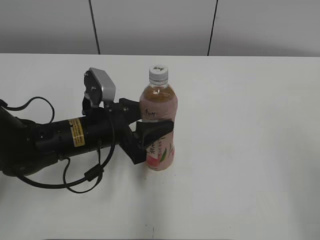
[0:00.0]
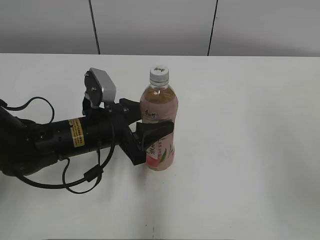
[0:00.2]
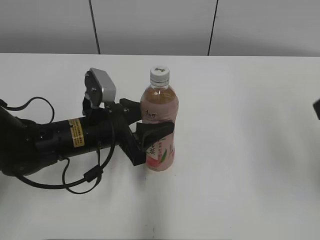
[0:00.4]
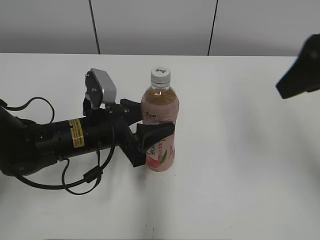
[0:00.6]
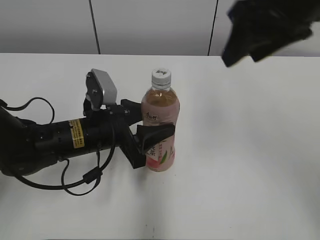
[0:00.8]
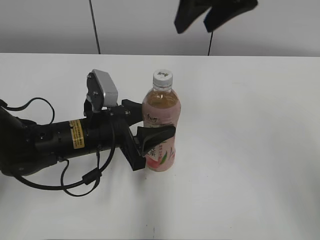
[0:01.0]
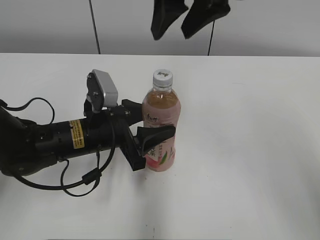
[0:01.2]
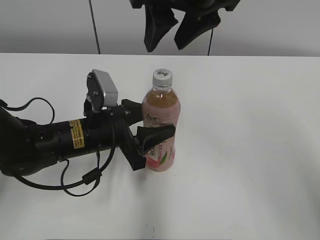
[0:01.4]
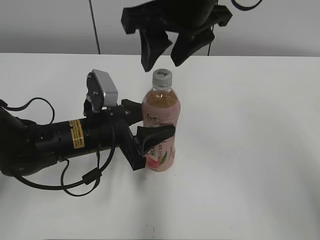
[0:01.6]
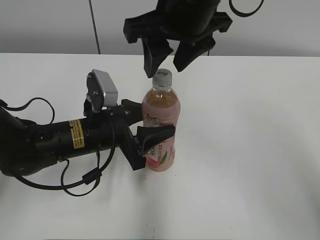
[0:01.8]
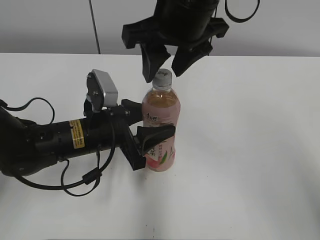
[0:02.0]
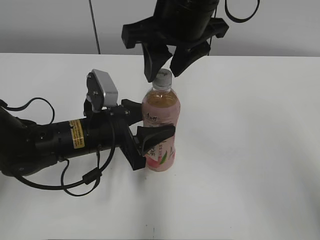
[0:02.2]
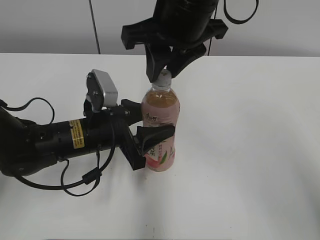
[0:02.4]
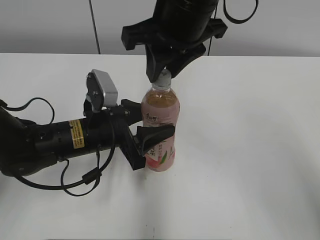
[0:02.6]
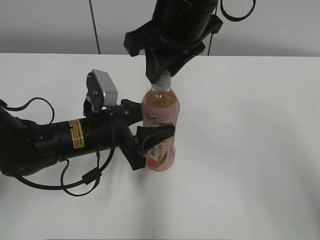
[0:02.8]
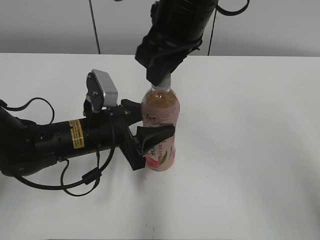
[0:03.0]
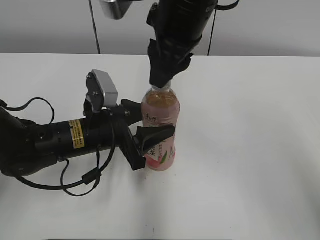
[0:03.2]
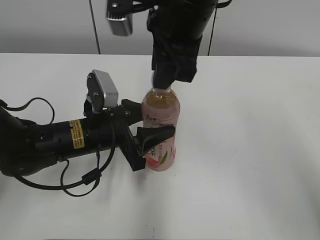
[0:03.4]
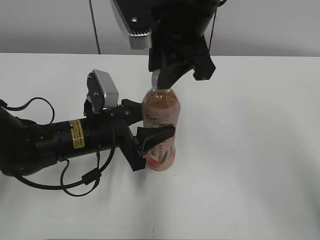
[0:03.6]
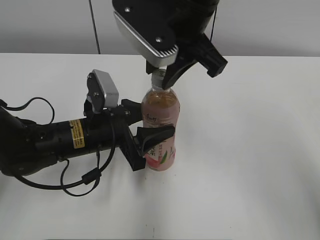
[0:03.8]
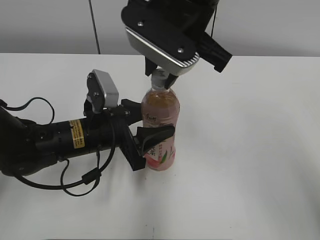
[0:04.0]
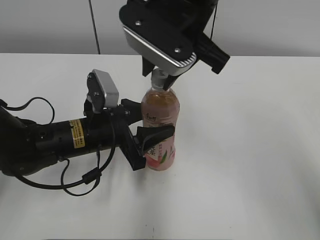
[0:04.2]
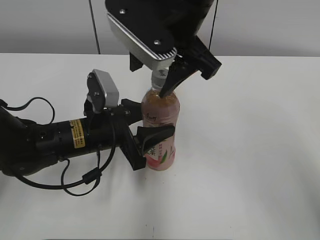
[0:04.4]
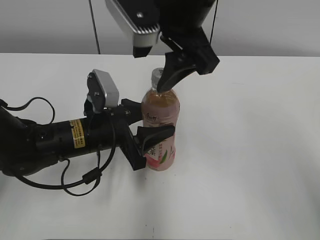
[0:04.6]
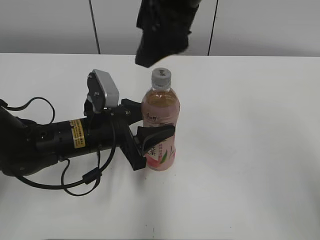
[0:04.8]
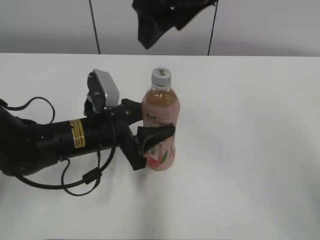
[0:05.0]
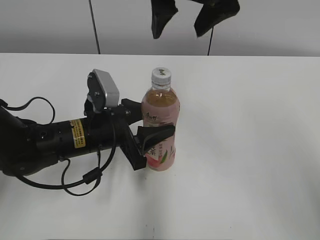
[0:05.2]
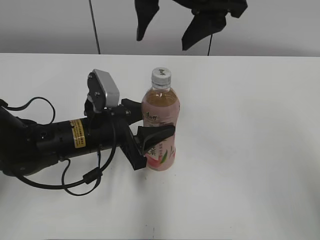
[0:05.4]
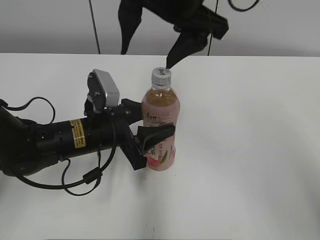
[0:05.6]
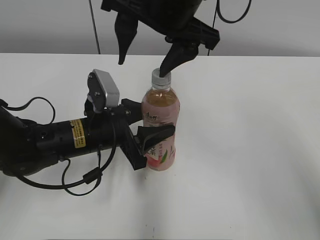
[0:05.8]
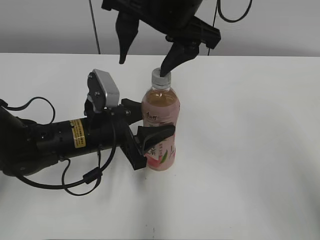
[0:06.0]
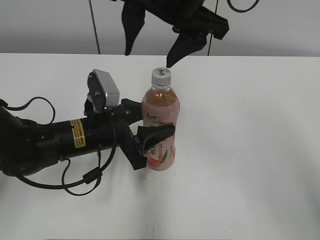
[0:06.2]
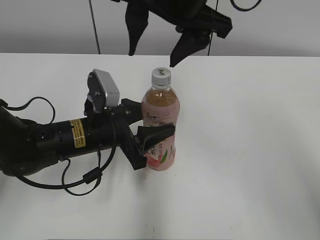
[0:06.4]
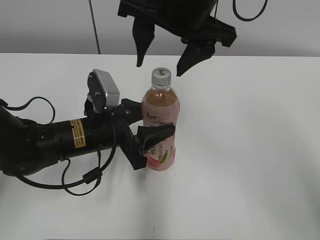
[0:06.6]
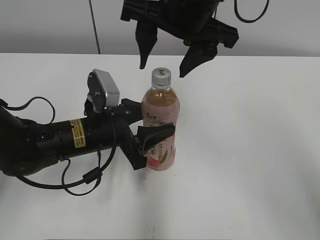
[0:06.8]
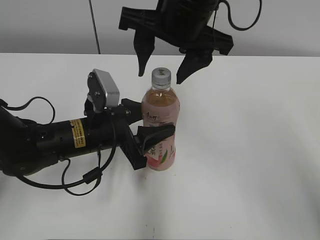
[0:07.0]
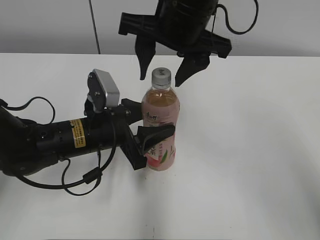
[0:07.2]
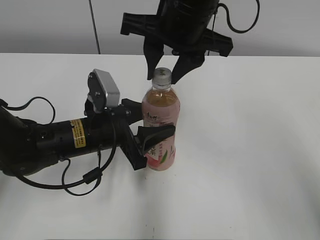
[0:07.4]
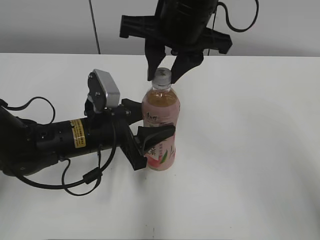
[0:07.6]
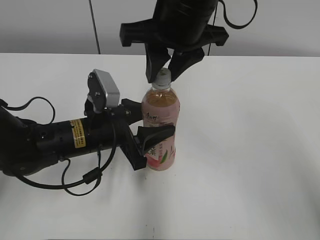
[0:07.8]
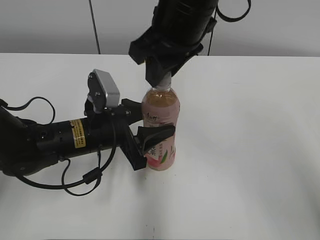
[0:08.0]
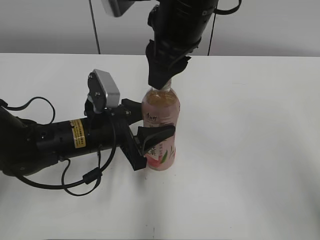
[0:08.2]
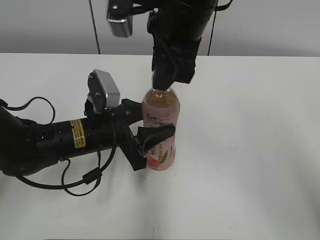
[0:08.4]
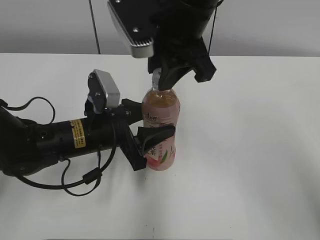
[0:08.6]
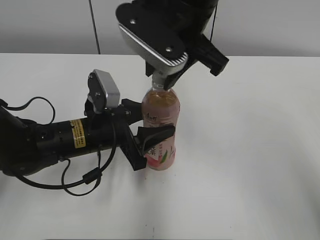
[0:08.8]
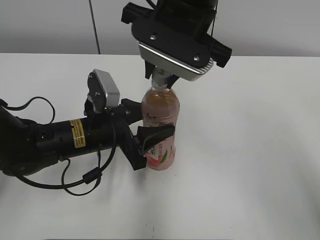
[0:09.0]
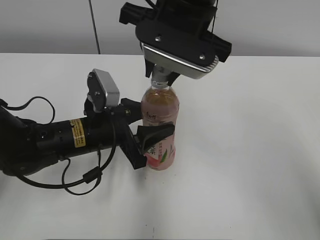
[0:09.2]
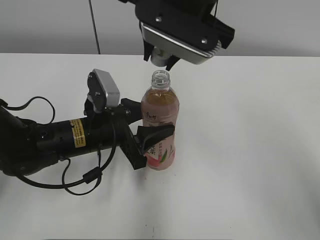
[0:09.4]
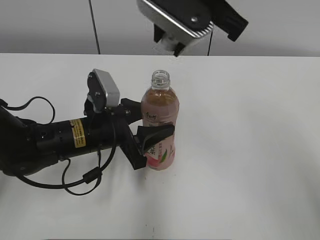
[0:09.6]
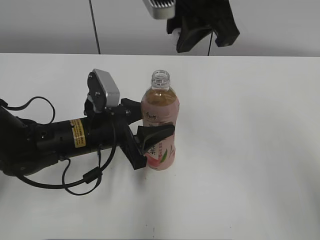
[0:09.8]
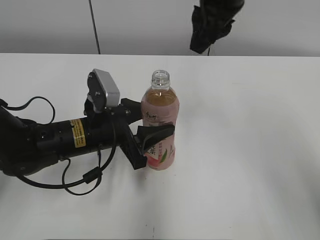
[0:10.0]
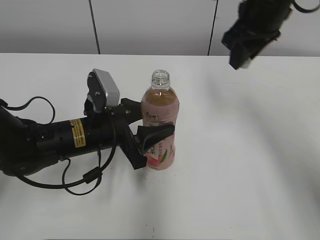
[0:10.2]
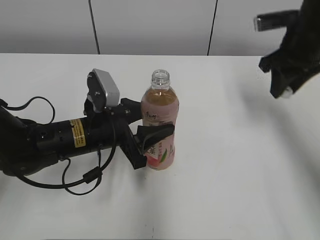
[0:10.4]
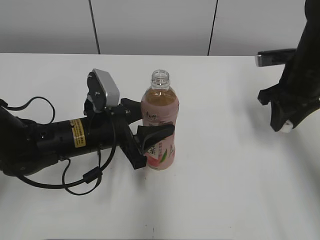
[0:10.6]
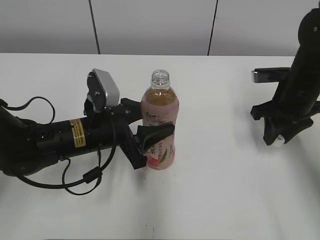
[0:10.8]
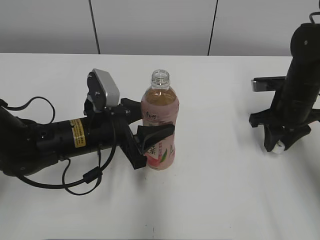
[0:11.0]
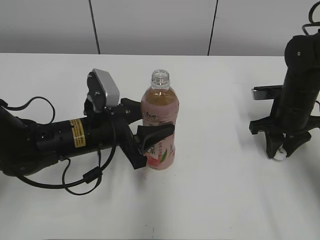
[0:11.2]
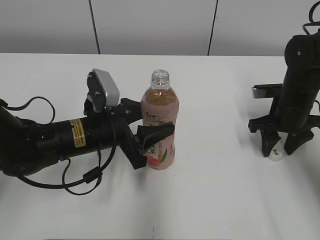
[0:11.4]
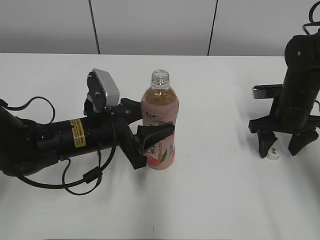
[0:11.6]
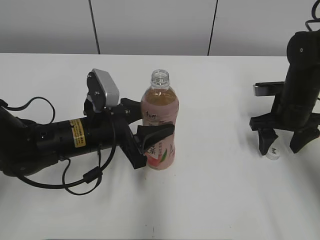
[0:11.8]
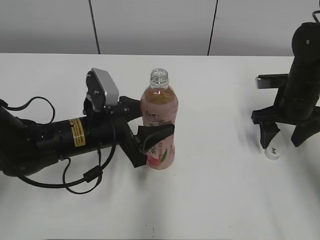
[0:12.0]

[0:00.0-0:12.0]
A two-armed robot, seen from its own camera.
Step, 0.0 to 9.2 s: Unscrew the bottle cap with the right gripper while holding the bottle with the left gripper.
Step, 9.4 to 11.4 s: Place the bottle cap on the table with the right gripper.
0.0 to 1.6 s: The right gripper goes about 35 cm forward and to the left.
1.6 to 3.0 s: The right gripper closes.
3.0 to 4.4 s: The right gripper opens its fingers.
6.0 to 7.6 s: The right gripper closes its fingers.
9.0 to 10.4 s: The right gripper goes about 20 cm to the right and forward.
10.4 to 12.0 s: The right gripper moves downward, some 10 cm, and opens its fingers.

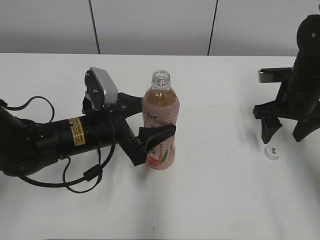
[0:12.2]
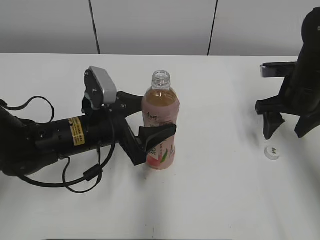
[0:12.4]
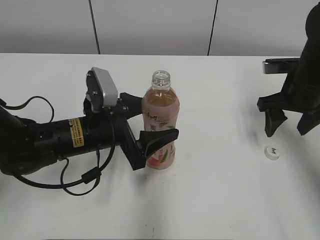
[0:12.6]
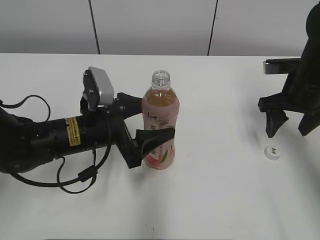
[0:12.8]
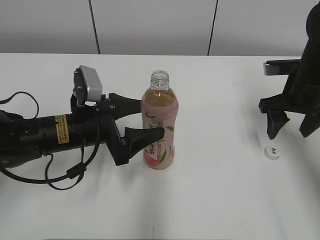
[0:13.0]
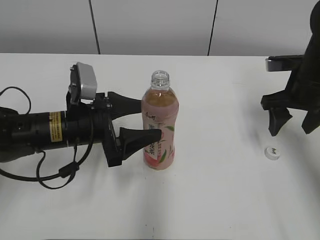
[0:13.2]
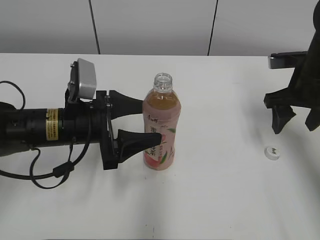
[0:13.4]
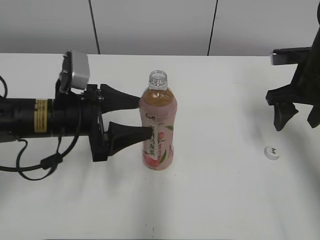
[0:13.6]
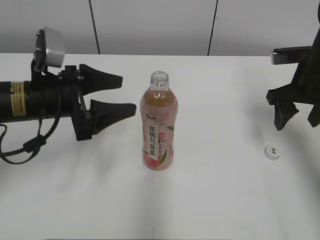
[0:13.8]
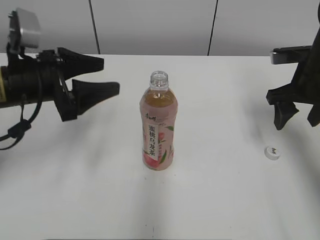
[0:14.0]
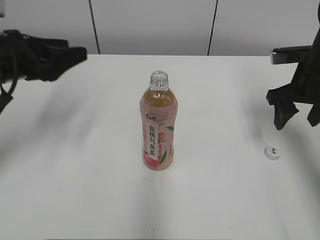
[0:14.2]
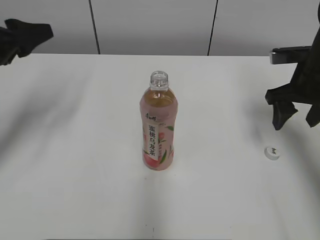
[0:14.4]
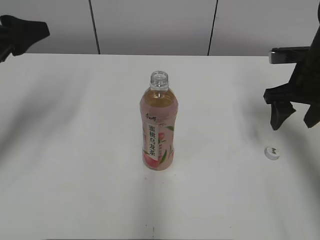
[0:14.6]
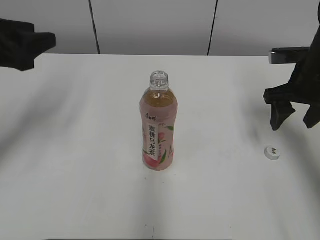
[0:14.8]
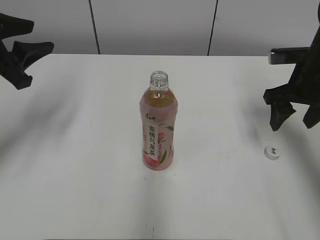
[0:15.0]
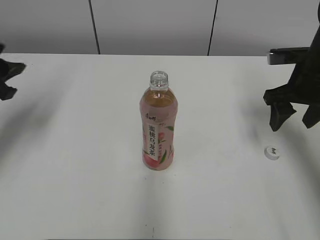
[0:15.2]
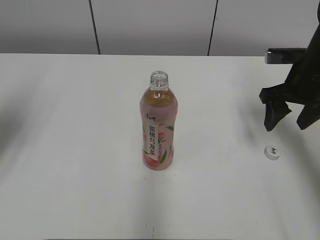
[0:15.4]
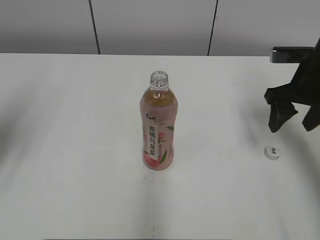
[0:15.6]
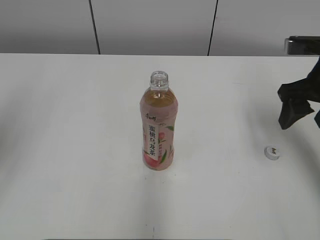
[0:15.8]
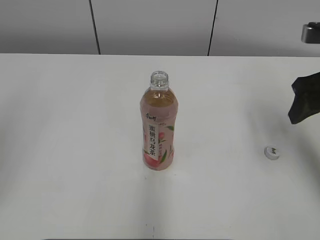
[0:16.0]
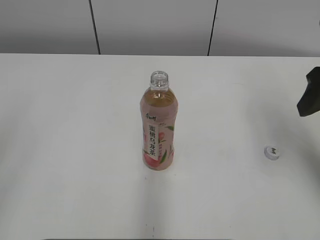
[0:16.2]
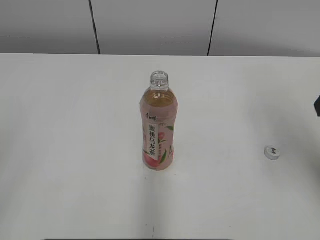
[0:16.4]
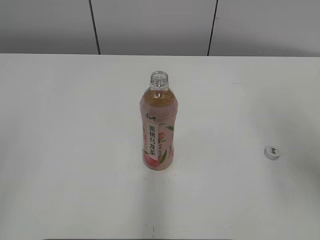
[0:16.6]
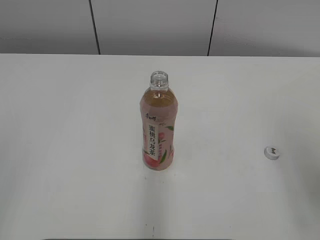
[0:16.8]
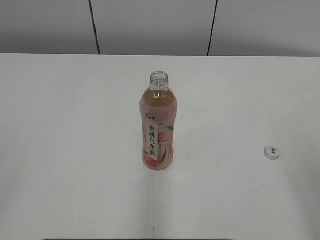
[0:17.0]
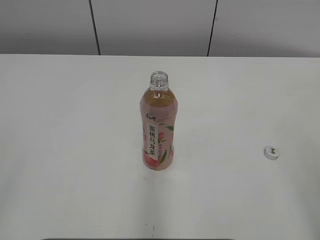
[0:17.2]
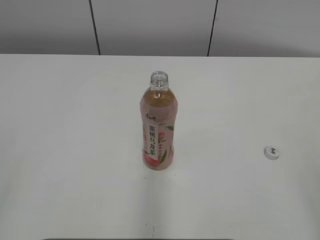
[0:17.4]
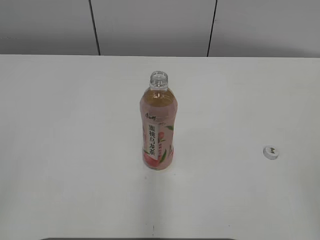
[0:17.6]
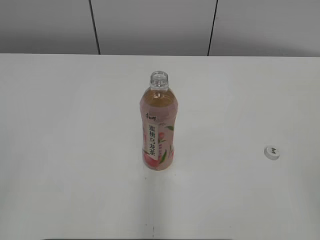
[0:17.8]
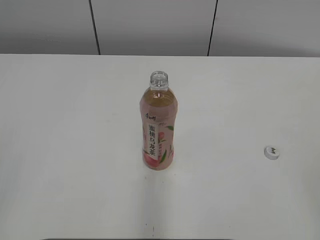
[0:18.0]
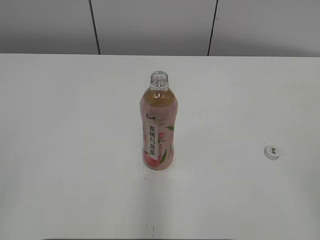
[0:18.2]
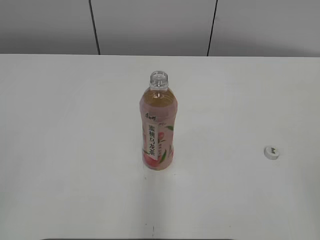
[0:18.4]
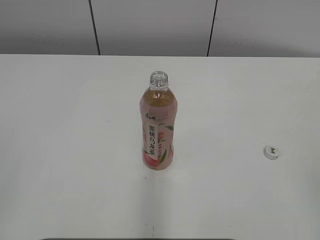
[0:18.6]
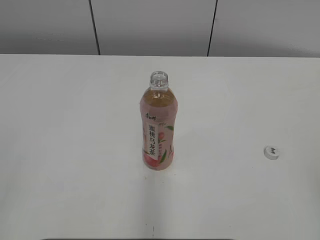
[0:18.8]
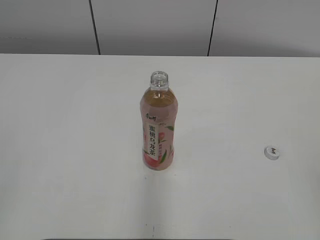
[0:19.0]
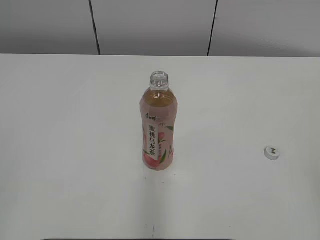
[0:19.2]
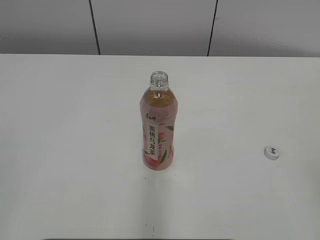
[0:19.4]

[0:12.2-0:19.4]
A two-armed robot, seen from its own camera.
12.2 to 13.6 s: The left gripper ends up about 5 cm from where it was.
13.6 to 15.0 s: The left gripper moves to the left and upward, roughly 15 cm, and closes.
15.0 to 16.6 s: The right gripper moves backward and upward, roughly 20 cm. The left gripper goes about 25 cm backward.
16.6 to 18.0 s: The right gripper goes roughly 20 cm backward.

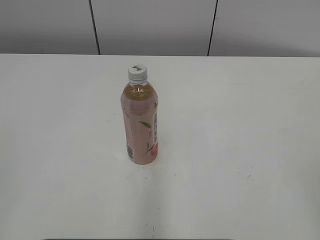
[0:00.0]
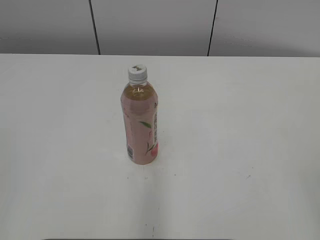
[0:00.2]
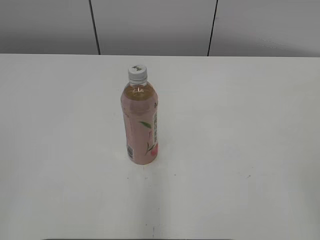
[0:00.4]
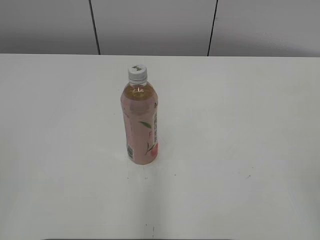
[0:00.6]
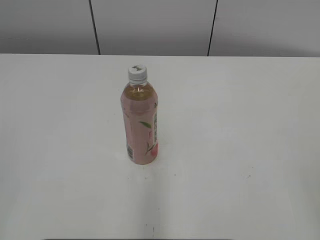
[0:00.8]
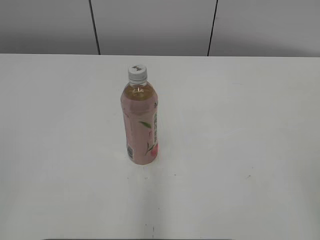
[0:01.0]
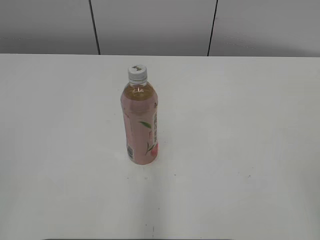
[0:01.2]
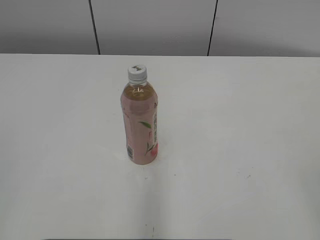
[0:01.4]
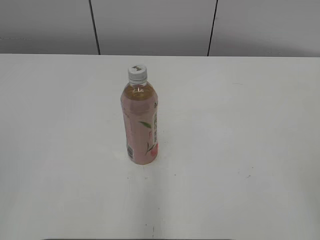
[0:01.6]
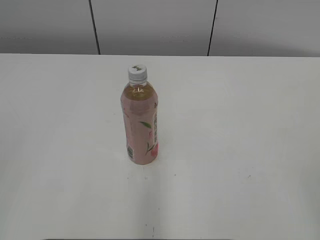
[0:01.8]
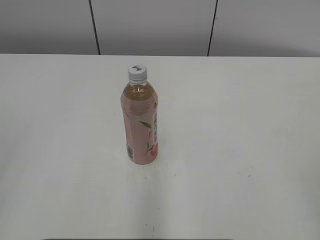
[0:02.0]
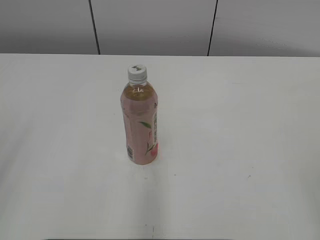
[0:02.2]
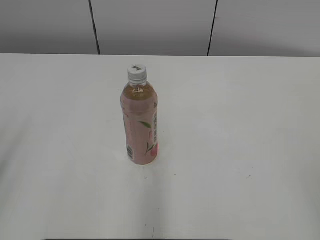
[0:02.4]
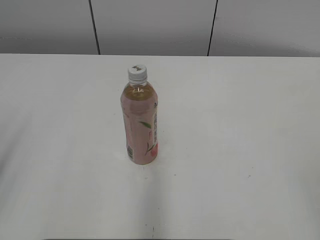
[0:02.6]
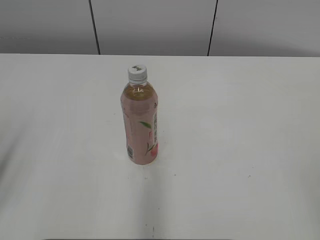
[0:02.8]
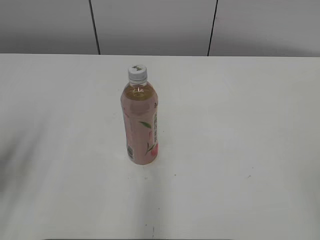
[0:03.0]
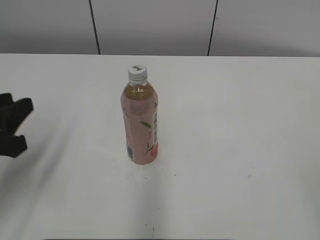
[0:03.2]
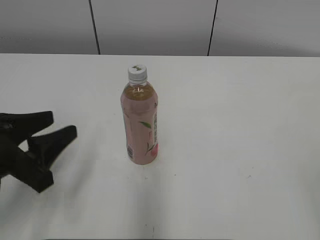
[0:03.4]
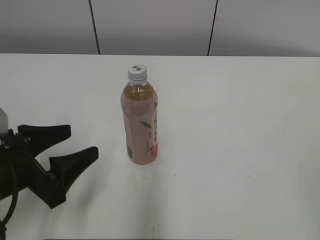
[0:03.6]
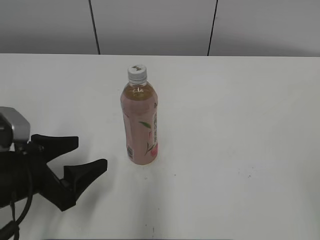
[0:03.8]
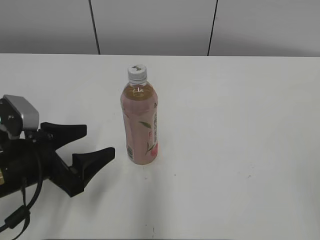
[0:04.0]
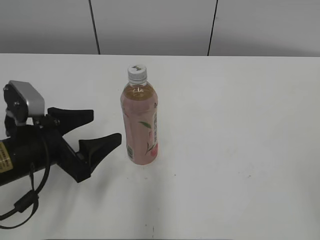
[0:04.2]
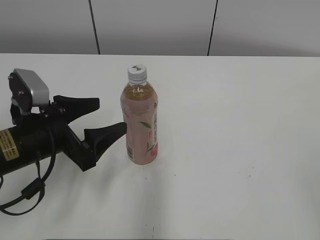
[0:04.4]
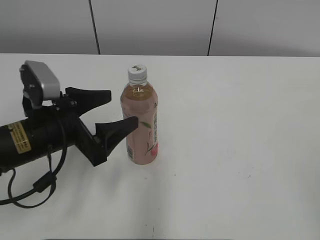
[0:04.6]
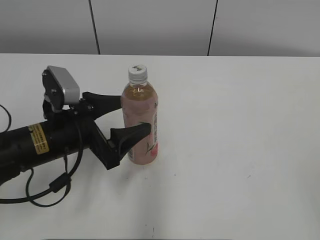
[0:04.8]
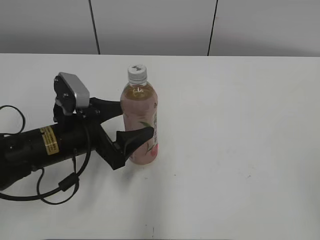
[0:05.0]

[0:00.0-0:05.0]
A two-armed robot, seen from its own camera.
1.6 to 3.4 s: The left gripper is displaced forward, downward and to the right by about 25 cm.
3.4 to 5.0 s: The left gripper goes about 15 cm forward, to the right and downward, and opens up.
